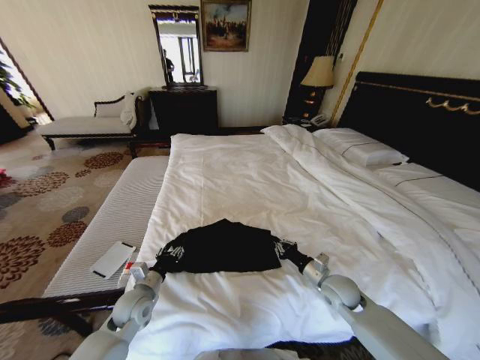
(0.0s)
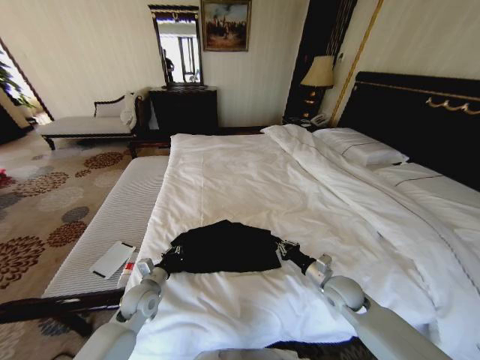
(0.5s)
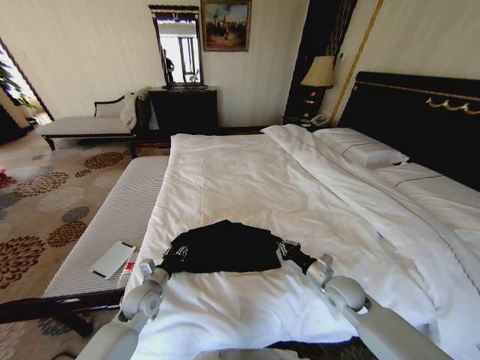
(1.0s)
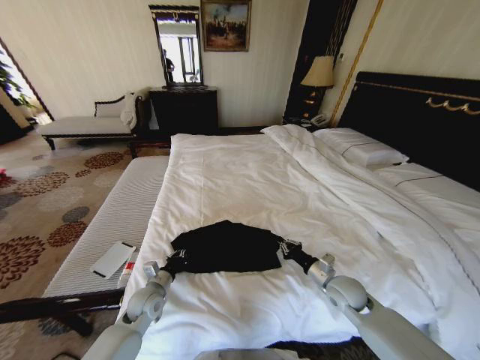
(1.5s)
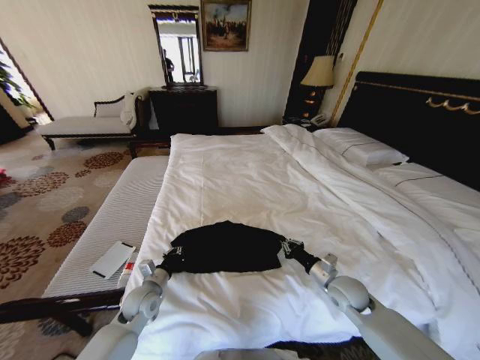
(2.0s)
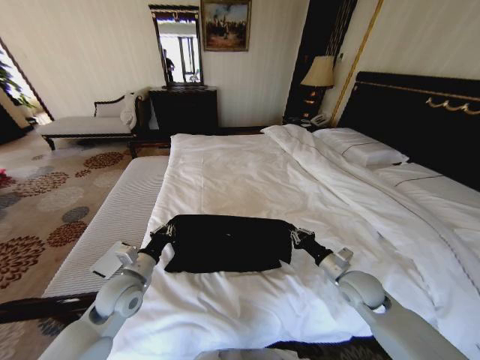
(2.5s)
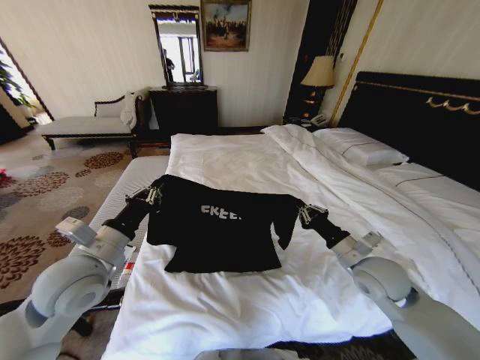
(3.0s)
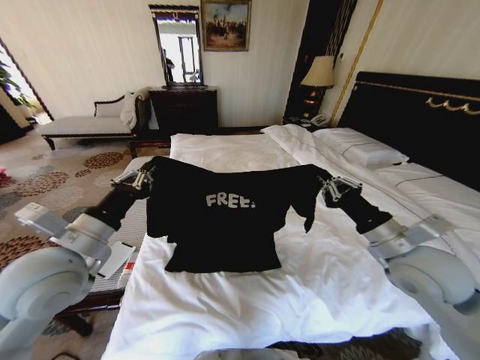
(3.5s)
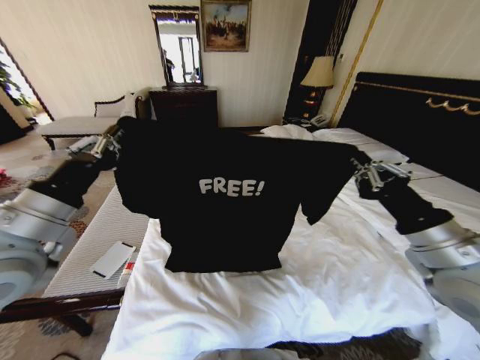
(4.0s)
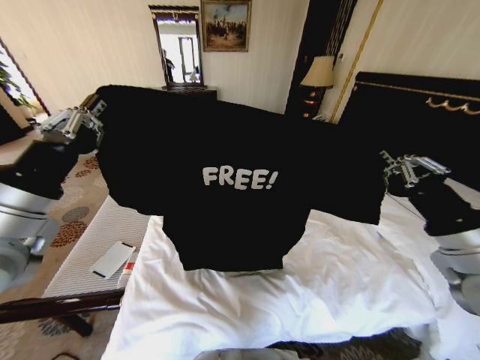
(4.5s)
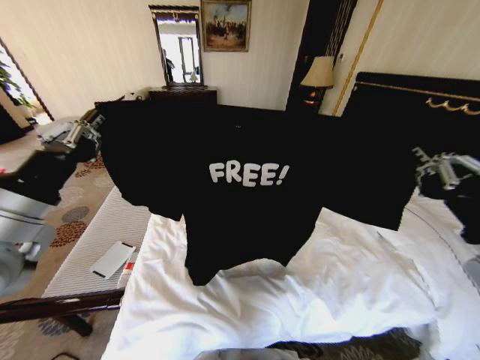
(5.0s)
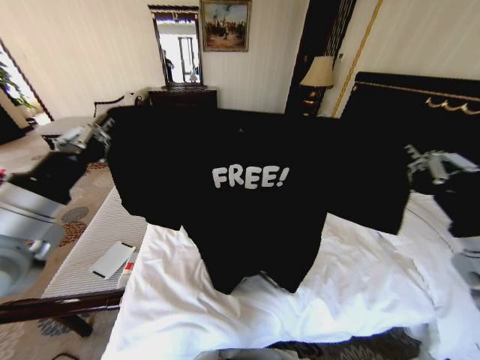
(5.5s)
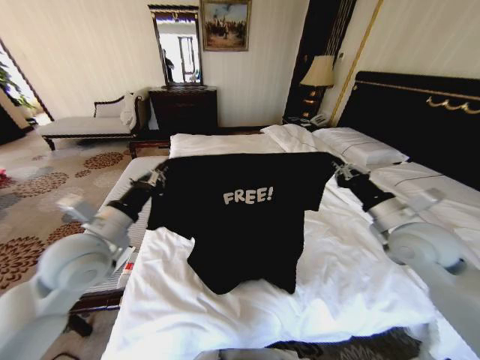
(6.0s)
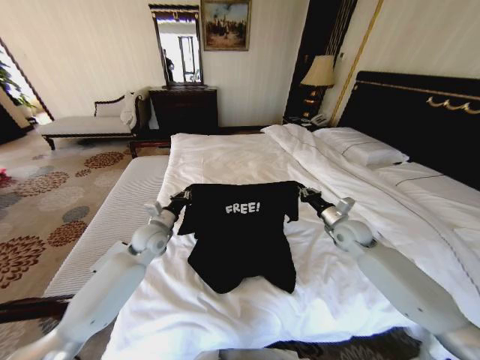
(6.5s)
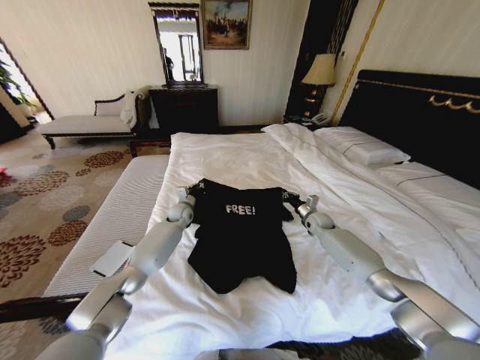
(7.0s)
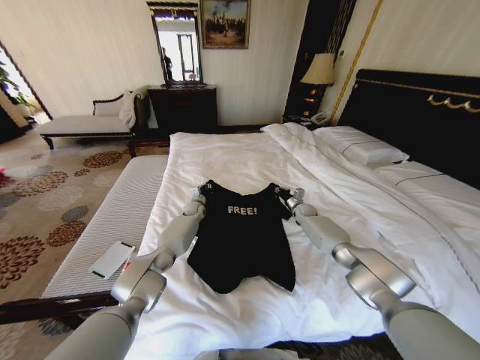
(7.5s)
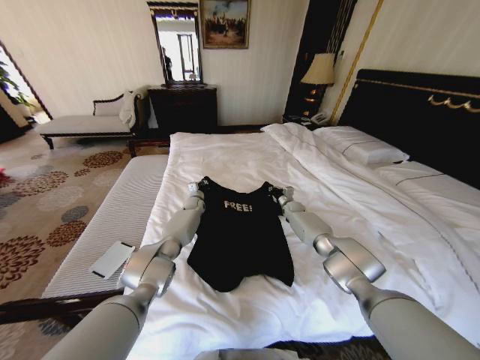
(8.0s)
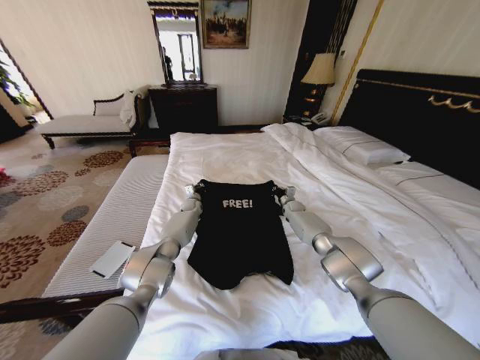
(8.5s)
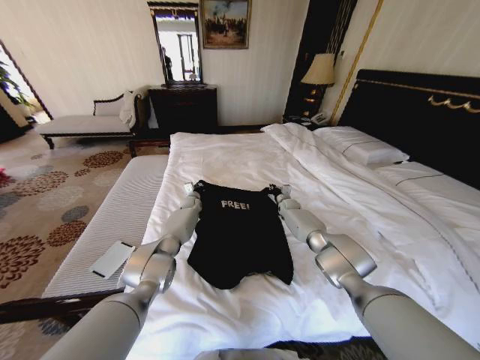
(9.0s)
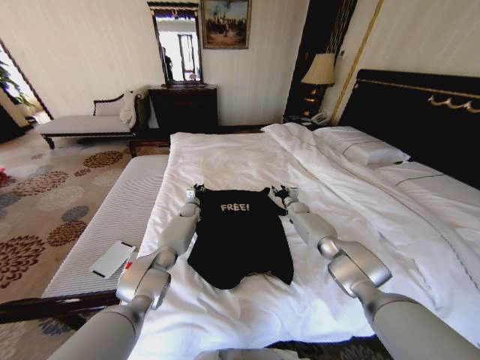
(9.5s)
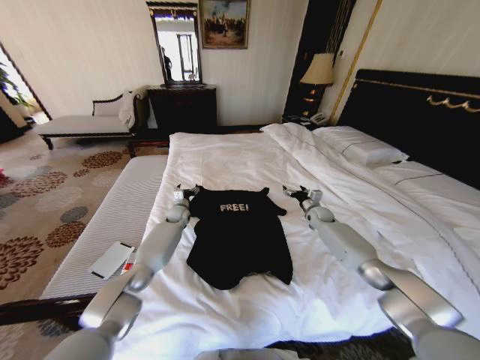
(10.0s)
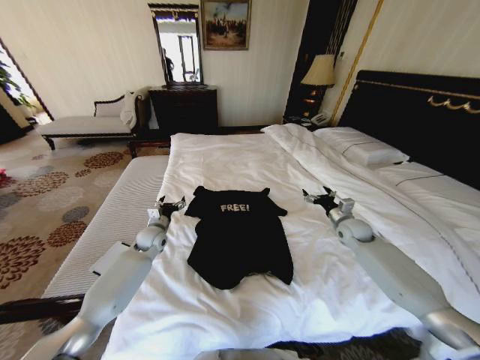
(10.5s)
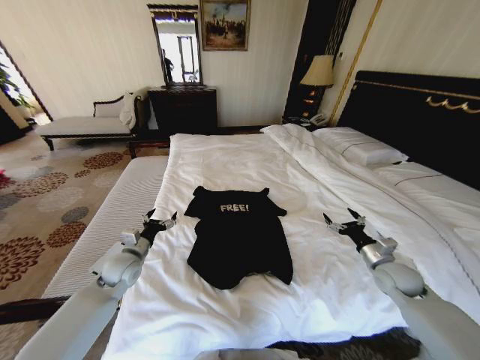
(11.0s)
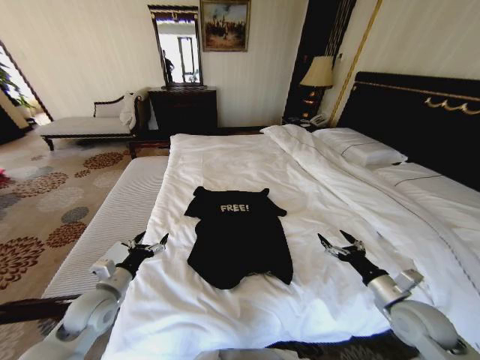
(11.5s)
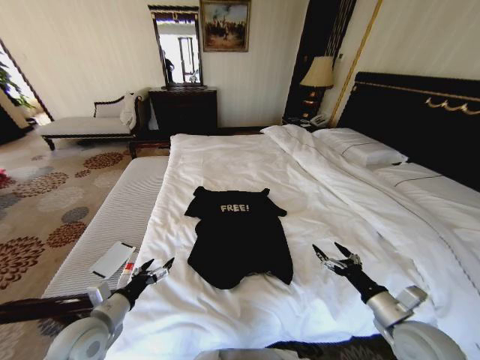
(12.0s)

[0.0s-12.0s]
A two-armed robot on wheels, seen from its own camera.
Task of the whole recording: Fold the clothes on the bed.
0.0s to 2.0s: The left gripper closes.
2.0s to 4.0s: The grippers both shift upward by about 30 cm.
4.0s to 6.0s: The left gripper goes roughly 5 cm downward. The right gripper shifts roughly 10 cm forward.
6.0s to 8.0s: The grippers both shift forward and downward by roughly 40 cm.
8.0s to 10.0s: The right gripper shifts about 10 cm to the right and backward, and opens its fingers. The left gripper shifts about 10 cm backward and to the left, and opens.
10.0s to 12.0s: Both grippers travel together backward, some 40 cm.

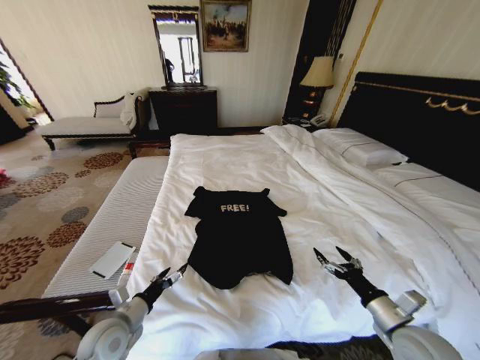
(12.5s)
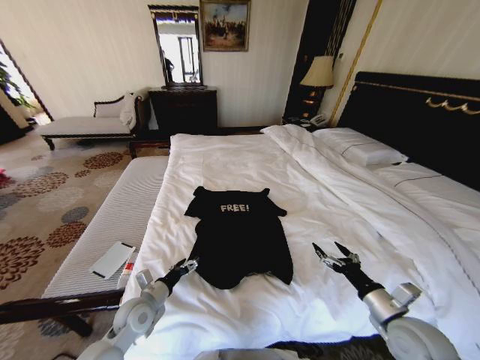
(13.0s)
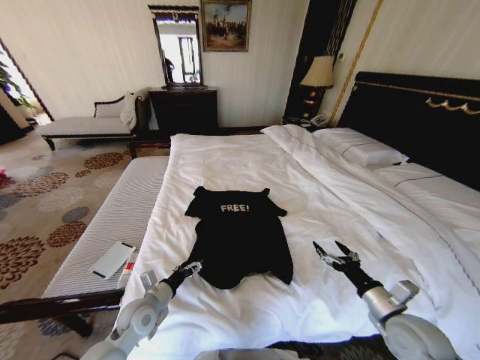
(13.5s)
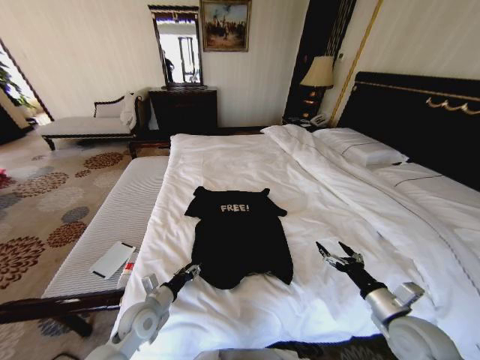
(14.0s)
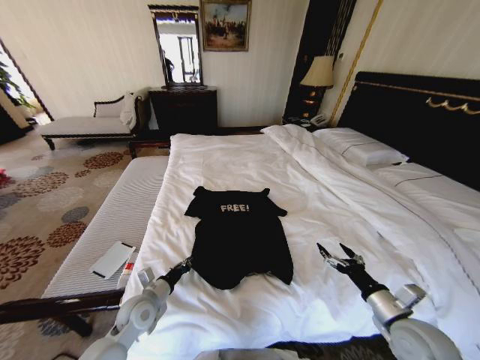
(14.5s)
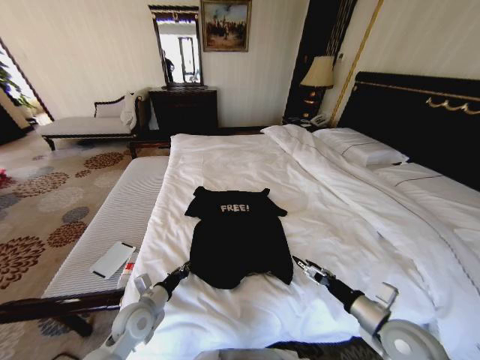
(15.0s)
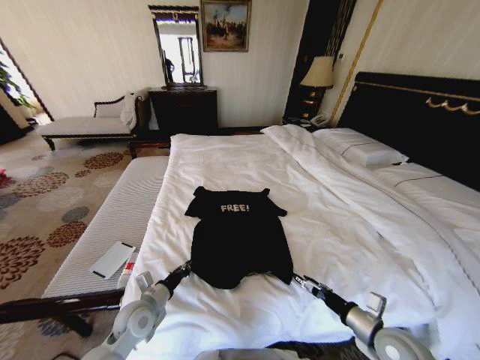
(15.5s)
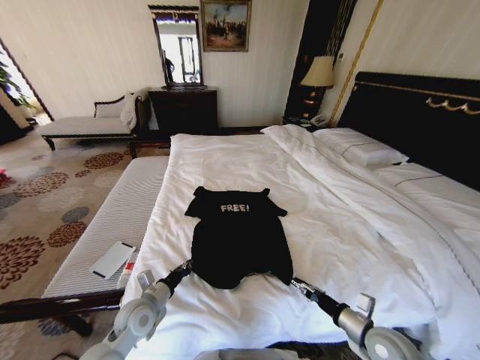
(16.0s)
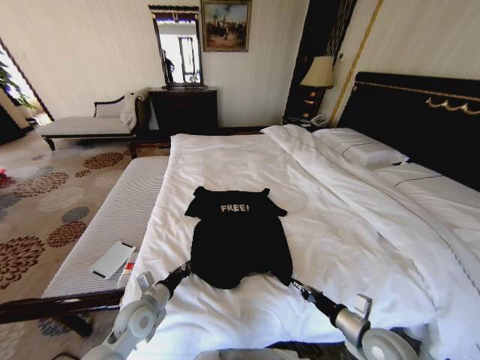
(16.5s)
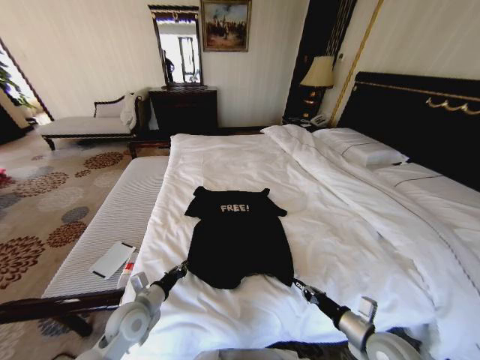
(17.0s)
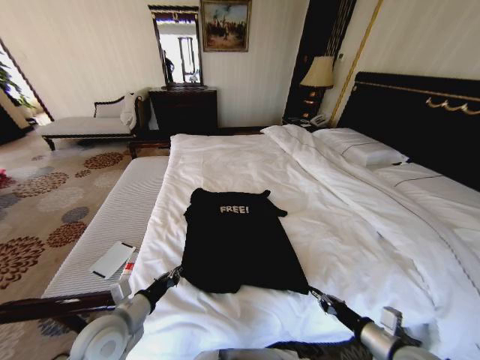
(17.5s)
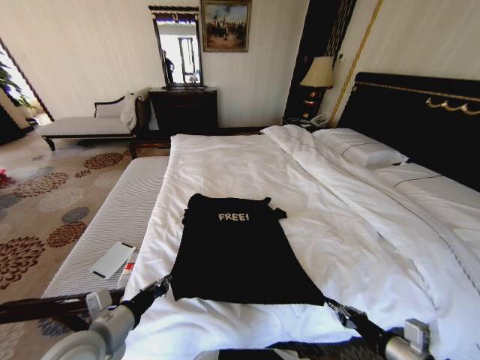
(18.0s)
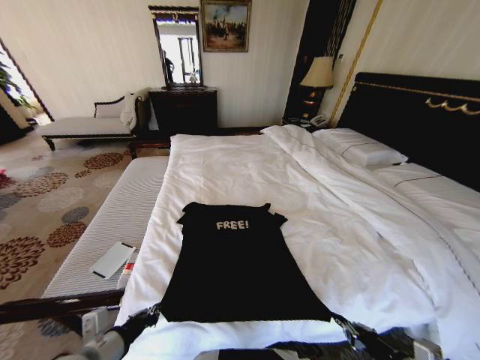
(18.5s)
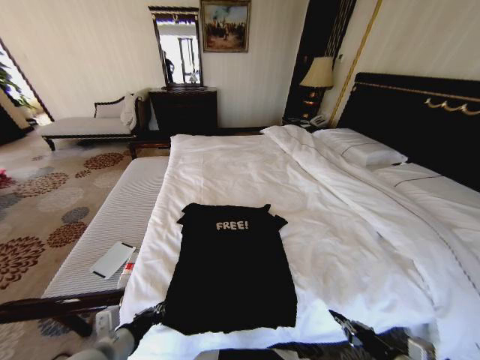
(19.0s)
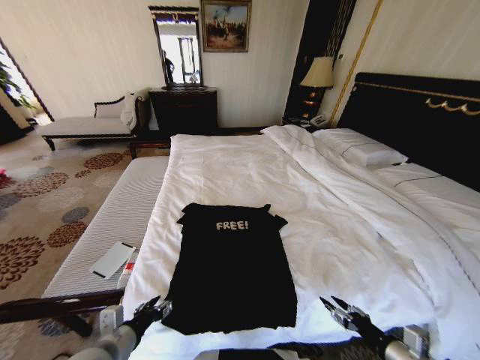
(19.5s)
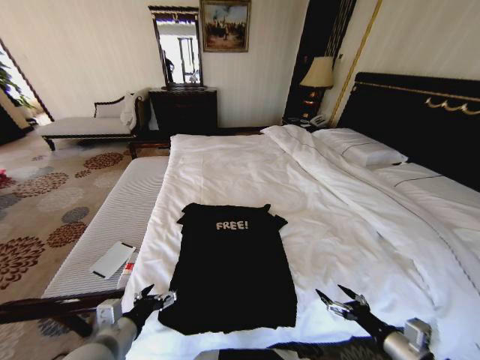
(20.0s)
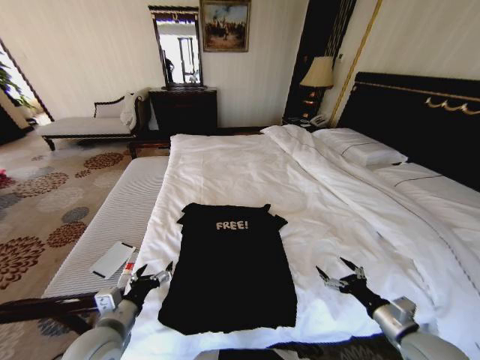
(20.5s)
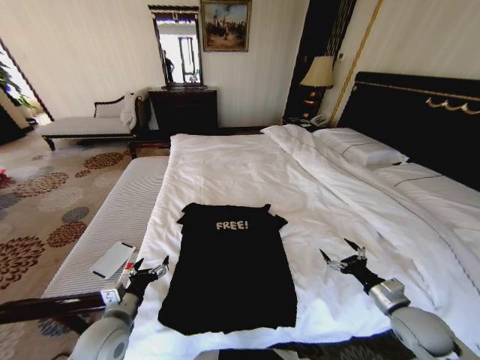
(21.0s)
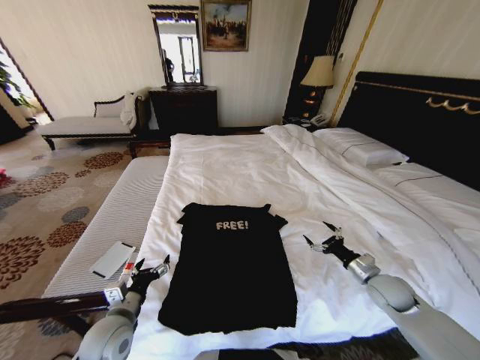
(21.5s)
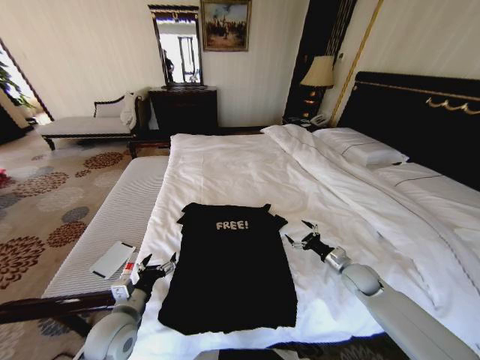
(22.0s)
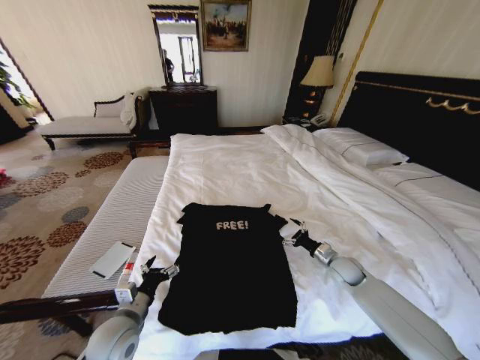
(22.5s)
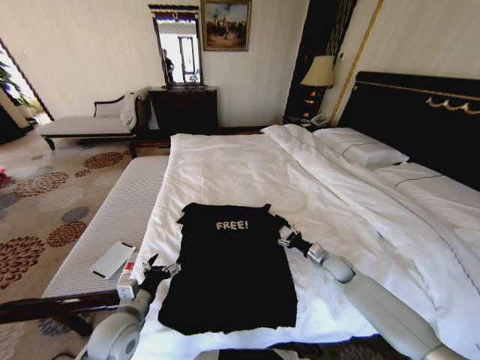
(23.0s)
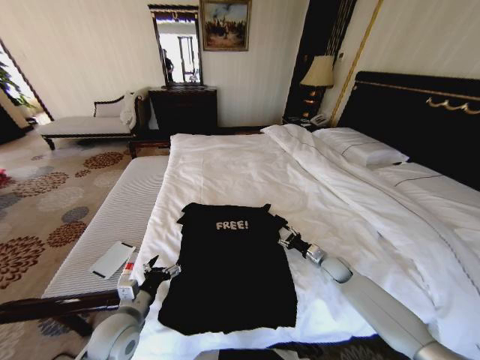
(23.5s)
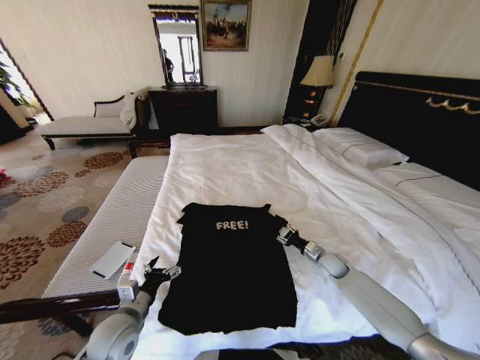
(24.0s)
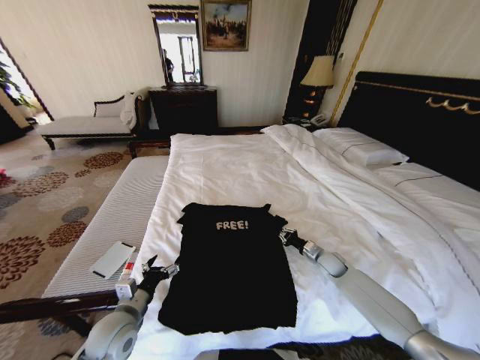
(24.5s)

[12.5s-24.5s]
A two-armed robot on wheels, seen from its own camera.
Task of the whole recording: Fold the clothes on the bed.
12.5s to 14.5s: The left gripper shifts some 5 cm forward, and closes up.
14.5s to 16.5s: The right gripper travels downward by some 5 cm, and closes.
16.5s to 18.5s: The right gripper travels backward and to the right by about 10 cm, while the left gripper shifts some 15 cm backward and upward.
18.5s to 20.5s: The left gripper moves approximately 5 cm, and opens; the right gripper moves forward, approximately 10 cm, and opens.
20.5s to 22.5s: The right gripper moves forward, roughly 20 cm.
22.5s to 24.5s: The right gripper changes place by roughly 5 cm, and closes its fingers.

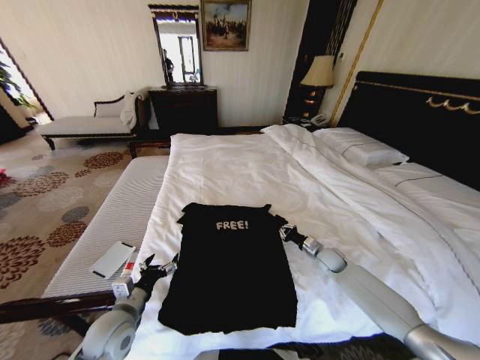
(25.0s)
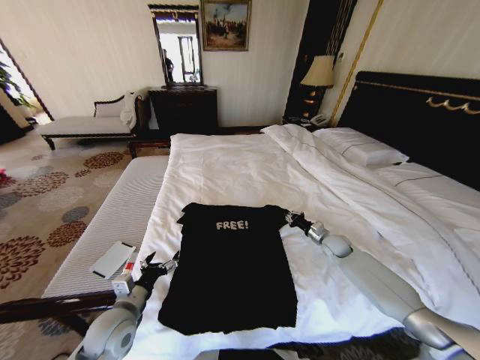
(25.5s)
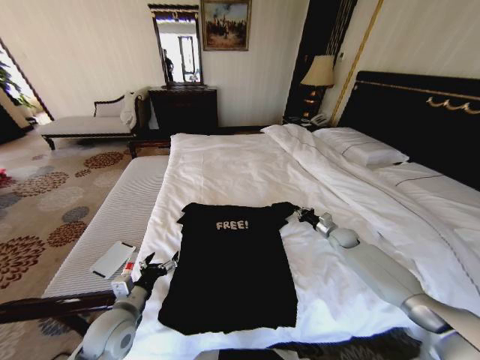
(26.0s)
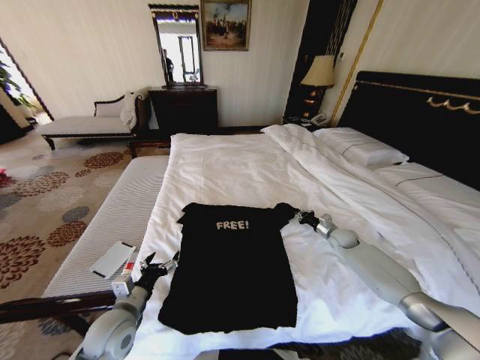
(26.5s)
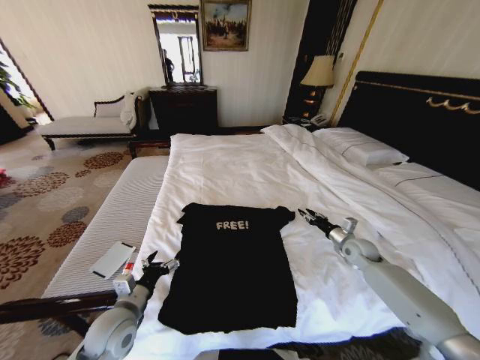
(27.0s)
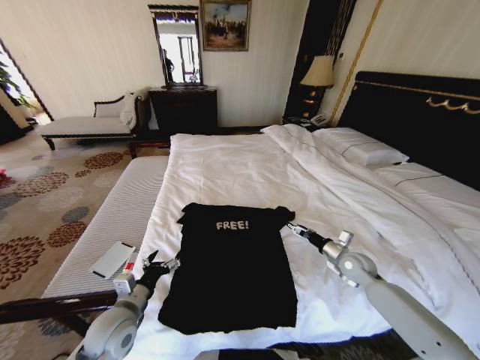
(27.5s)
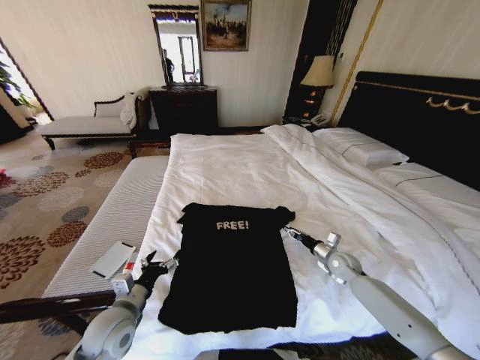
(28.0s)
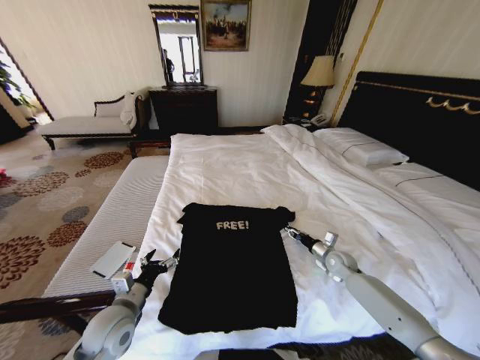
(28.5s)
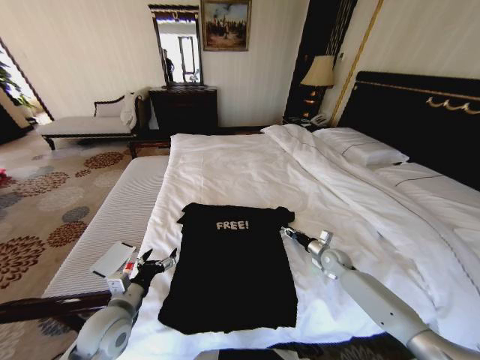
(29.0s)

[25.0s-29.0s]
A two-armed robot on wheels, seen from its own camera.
Task of the whole recording: Fold the clothes on the bed.
25.0s to 27.0s: The right gripper goes about 10 cm to the right and upward, and opens.
27.0s to 29.0s: The right gripper heads downward and to the left, covering about 10 cm, and opens, then closes once more.
